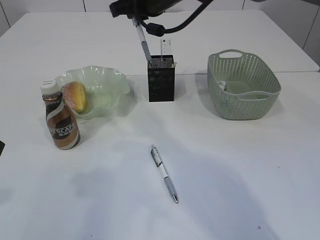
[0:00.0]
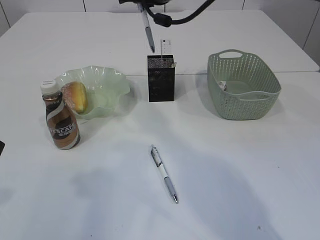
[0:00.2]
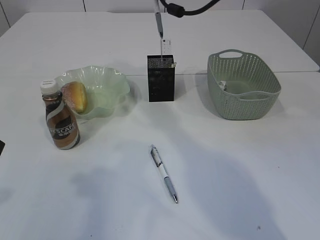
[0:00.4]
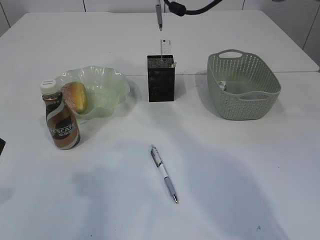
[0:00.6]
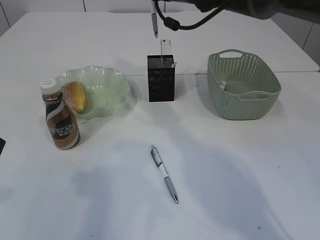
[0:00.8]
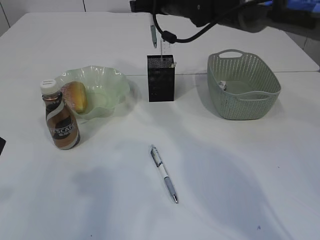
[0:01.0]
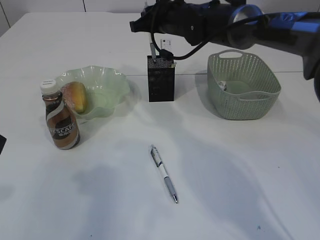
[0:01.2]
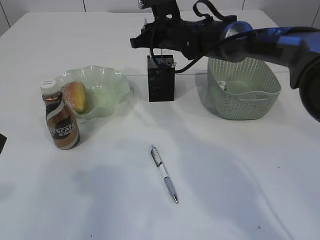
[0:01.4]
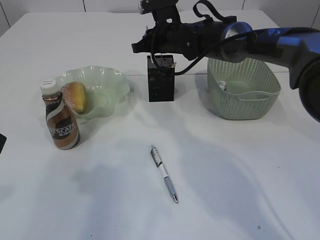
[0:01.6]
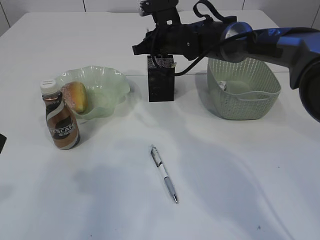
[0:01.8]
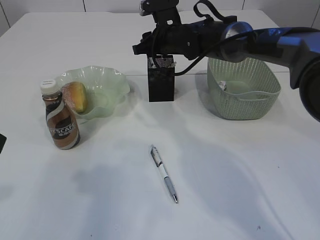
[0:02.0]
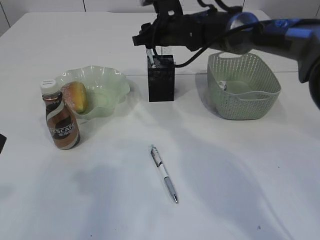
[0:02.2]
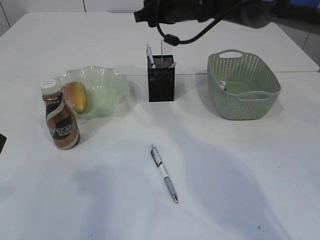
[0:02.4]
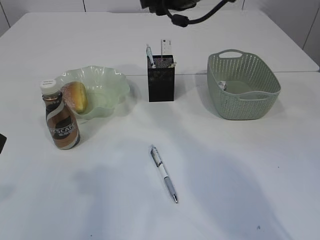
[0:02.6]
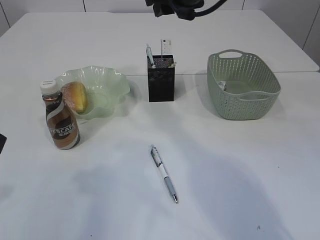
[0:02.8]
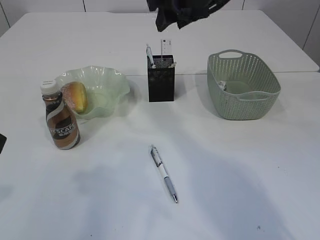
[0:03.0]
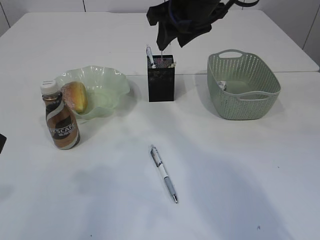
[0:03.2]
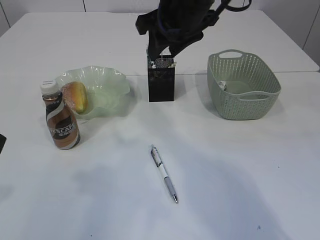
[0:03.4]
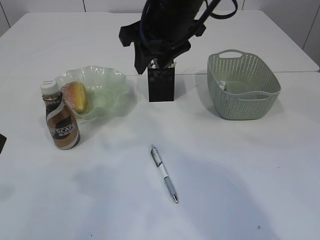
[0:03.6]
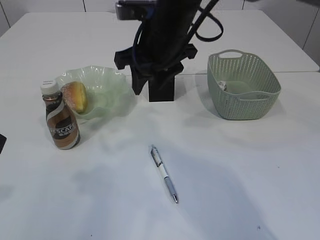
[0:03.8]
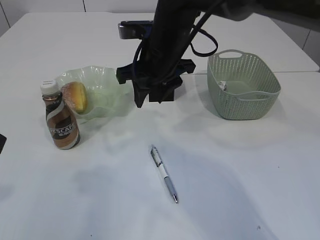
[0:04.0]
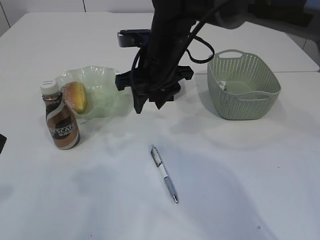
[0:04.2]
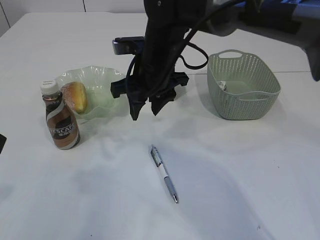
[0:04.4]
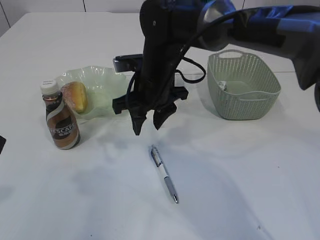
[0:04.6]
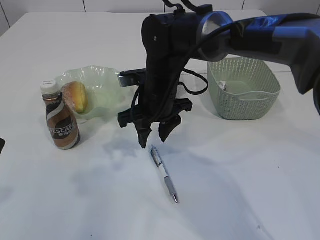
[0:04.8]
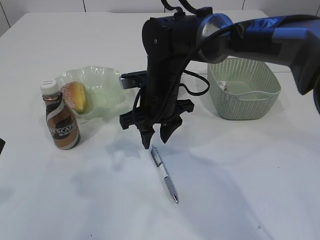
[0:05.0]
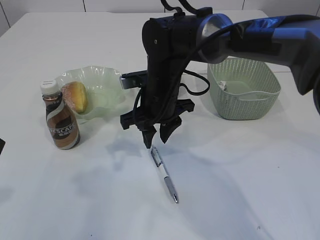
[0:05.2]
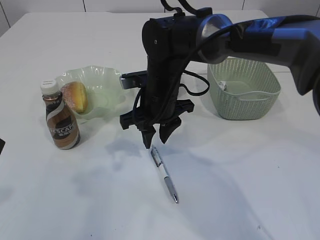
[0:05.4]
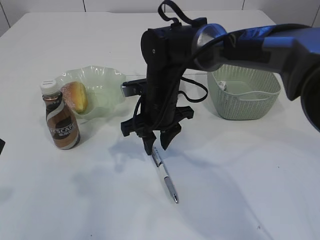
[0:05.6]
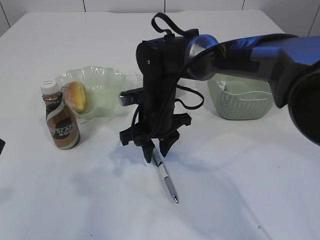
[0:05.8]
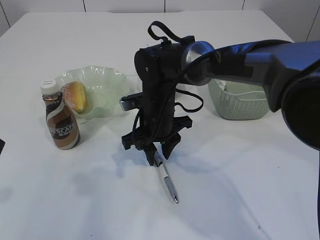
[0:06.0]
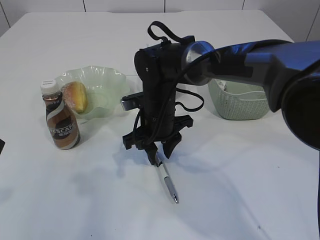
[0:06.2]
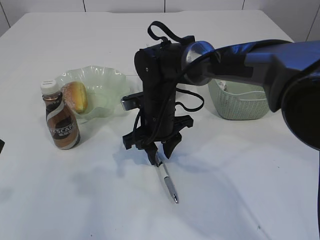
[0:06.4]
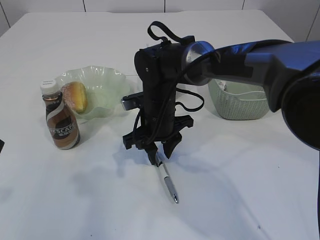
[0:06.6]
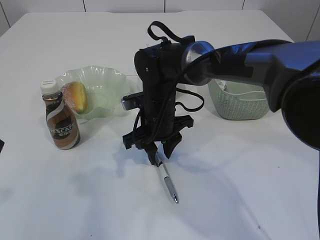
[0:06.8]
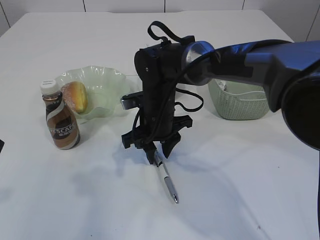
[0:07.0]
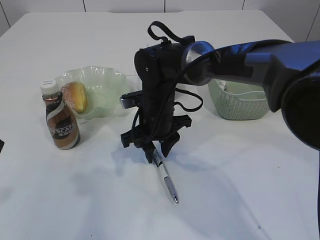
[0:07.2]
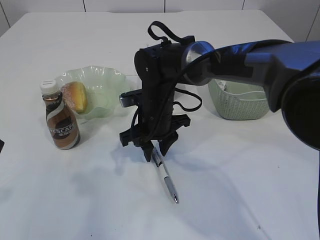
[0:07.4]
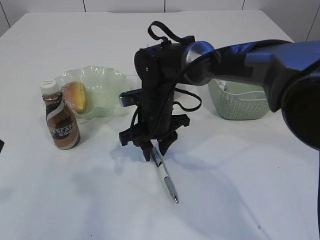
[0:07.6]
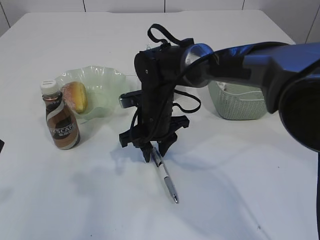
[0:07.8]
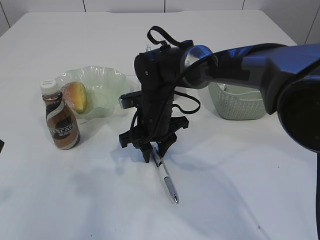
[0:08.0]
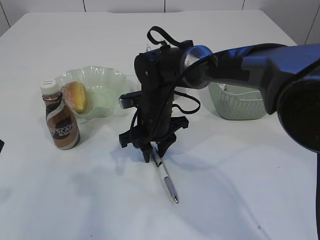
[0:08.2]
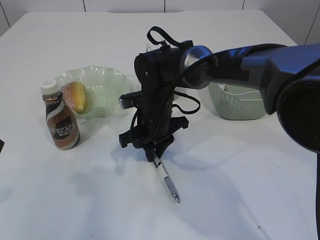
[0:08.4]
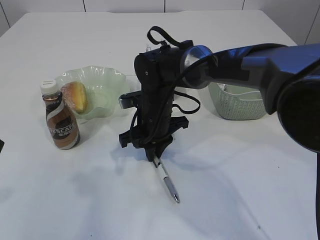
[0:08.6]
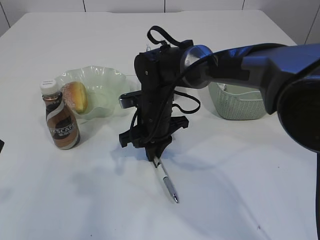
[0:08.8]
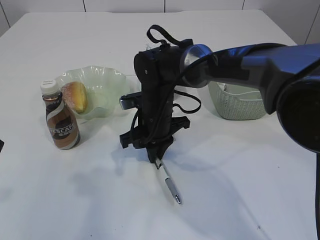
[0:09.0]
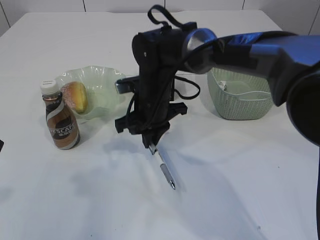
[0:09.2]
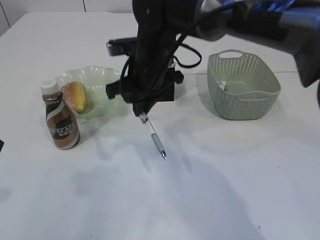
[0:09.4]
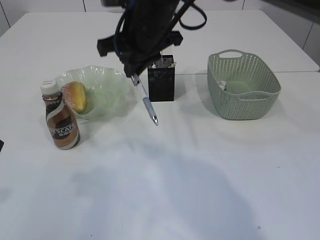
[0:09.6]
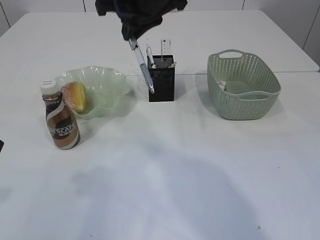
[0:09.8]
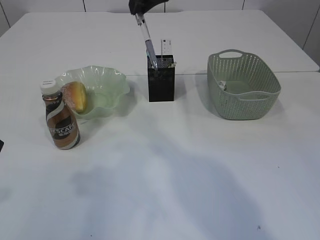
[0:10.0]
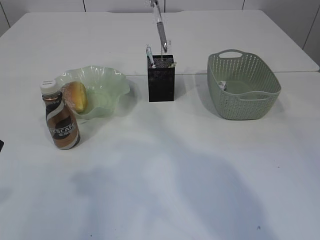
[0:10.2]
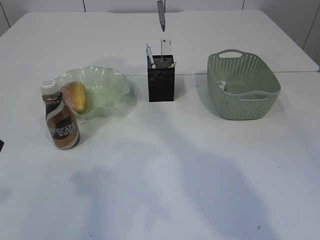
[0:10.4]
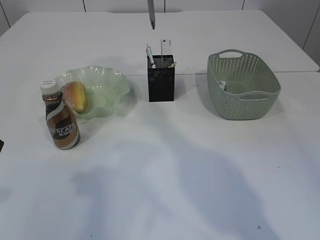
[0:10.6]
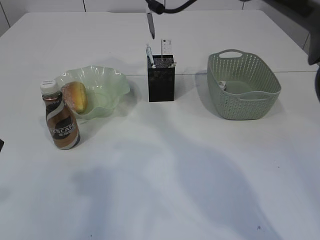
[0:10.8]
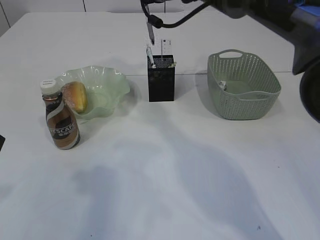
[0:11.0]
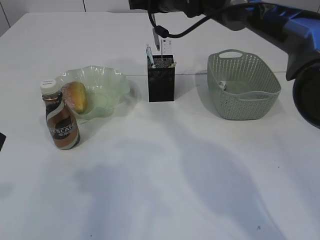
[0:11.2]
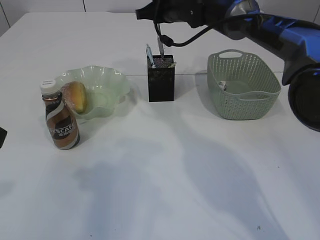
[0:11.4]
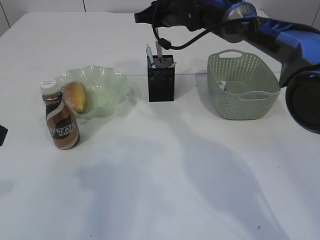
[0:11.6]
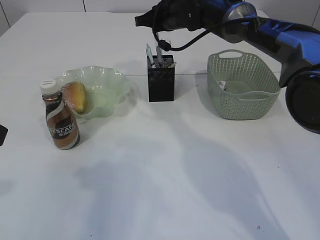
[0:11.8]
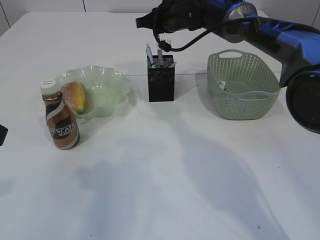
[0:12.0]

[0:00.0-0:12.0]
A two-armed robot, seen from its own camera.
Step, 0.0 to 3.0 s: Place the pen into the pen holder.
Step, 3.2 to 9.2 s: Pick up the pen with right arm.
0.0 to 1.6 s: The right gripper shifts approximately 15 cm downward and forward.
1.6 to 3.0 s: The right gripper heads upward and backward, covering some 15 cm, and opens up.
3.0 to 4.4 s: The right gripper shifts approximately 15 cm downward and to the left.
4.4 to 6.0 s: The right gripper is displaced downward by roughly 10 cm.
6.0 to 7.6 s: The two grippers keep their place.
7.6 to 9.0 s: The right gripper closes up.
9.0 to 10.4 s: The right gripper travels upward by approximately 25 cm.
10.4 to 12.0 s: The right gripper shifts roughly 15 cm downward and forward.

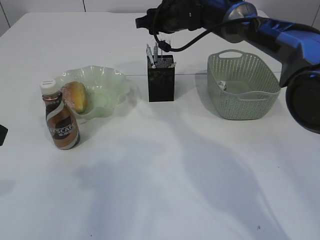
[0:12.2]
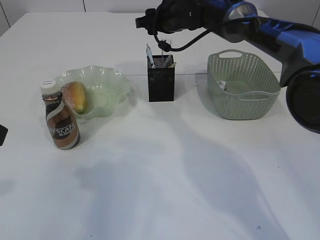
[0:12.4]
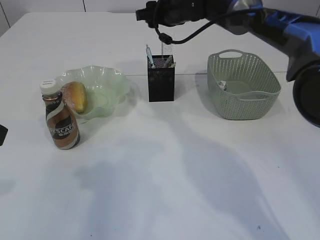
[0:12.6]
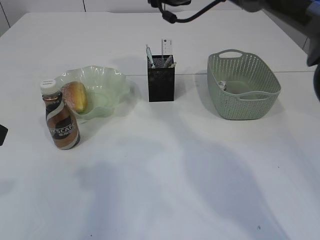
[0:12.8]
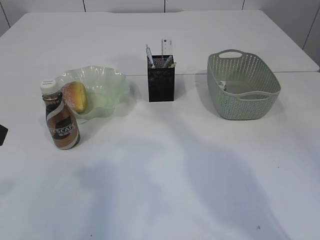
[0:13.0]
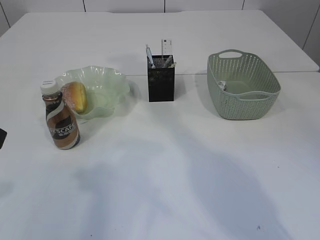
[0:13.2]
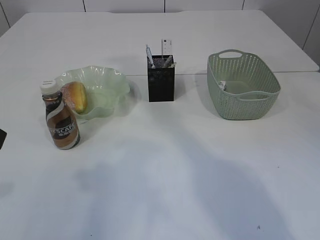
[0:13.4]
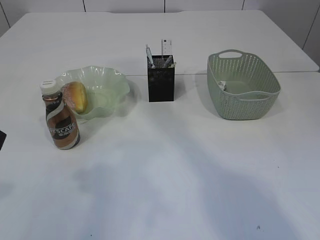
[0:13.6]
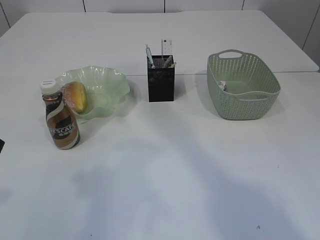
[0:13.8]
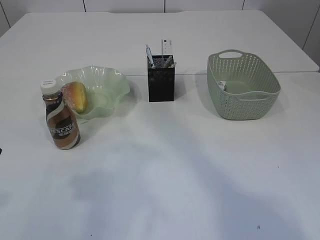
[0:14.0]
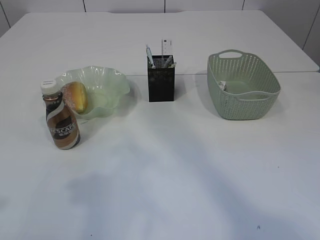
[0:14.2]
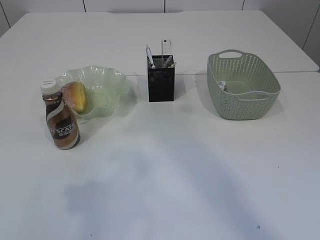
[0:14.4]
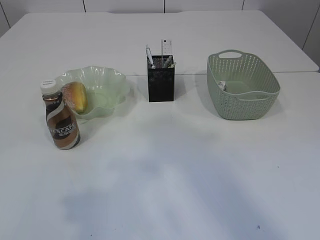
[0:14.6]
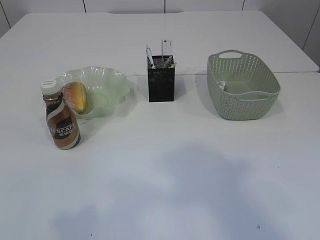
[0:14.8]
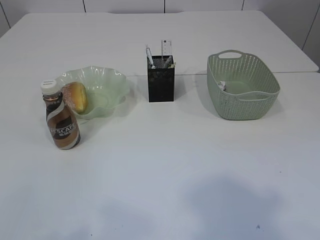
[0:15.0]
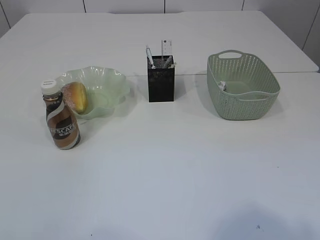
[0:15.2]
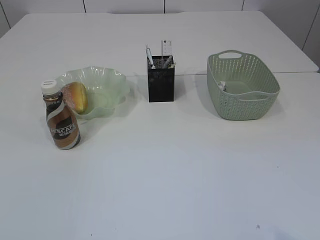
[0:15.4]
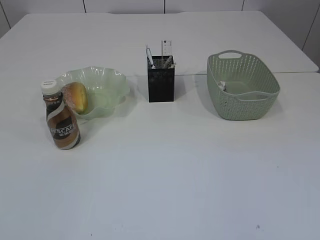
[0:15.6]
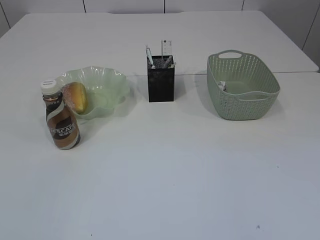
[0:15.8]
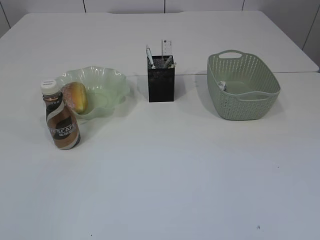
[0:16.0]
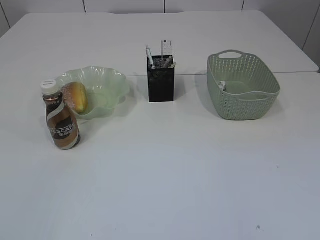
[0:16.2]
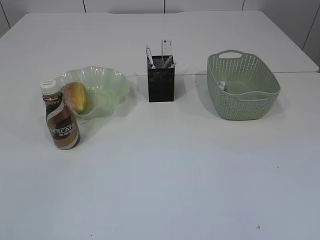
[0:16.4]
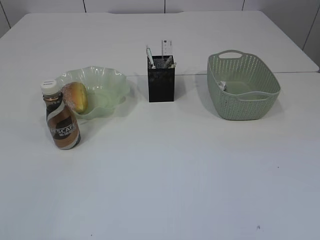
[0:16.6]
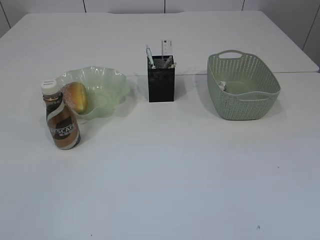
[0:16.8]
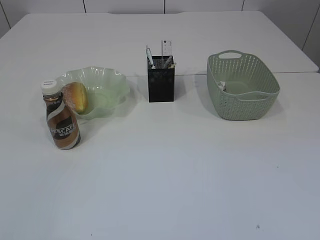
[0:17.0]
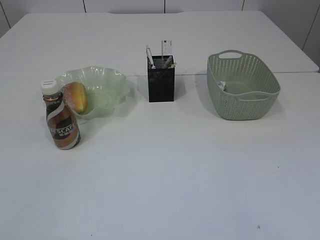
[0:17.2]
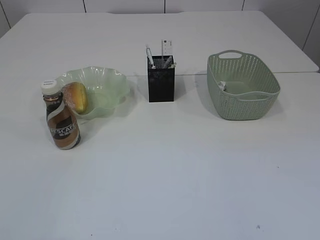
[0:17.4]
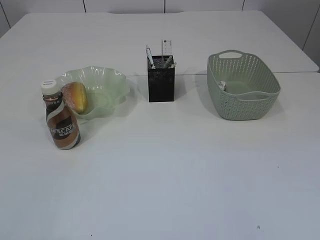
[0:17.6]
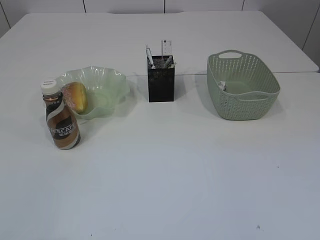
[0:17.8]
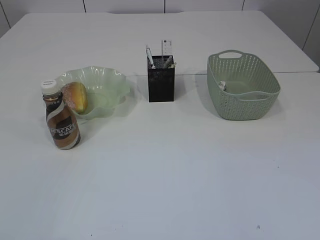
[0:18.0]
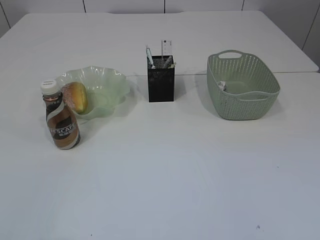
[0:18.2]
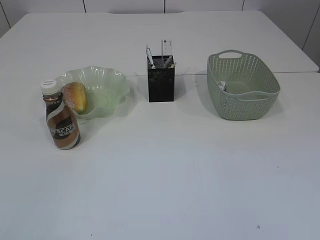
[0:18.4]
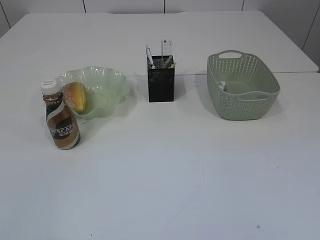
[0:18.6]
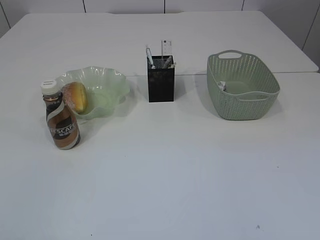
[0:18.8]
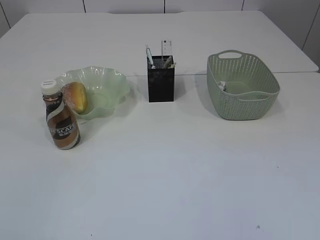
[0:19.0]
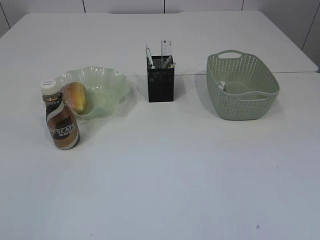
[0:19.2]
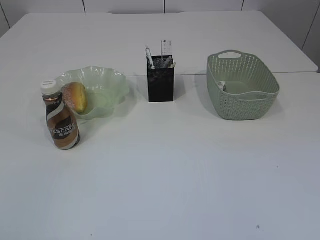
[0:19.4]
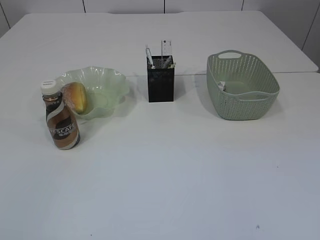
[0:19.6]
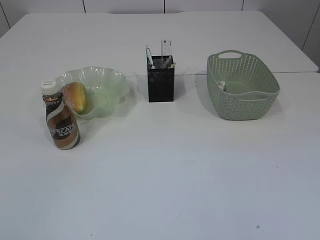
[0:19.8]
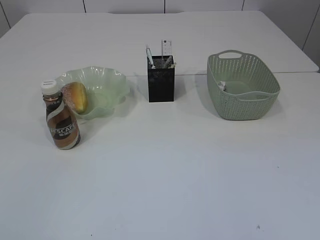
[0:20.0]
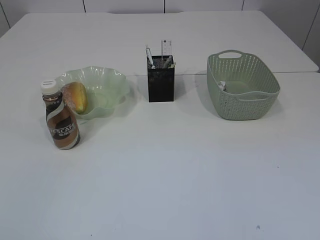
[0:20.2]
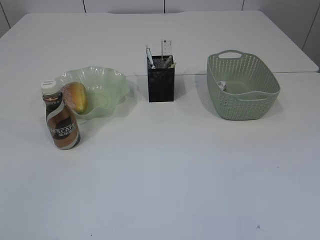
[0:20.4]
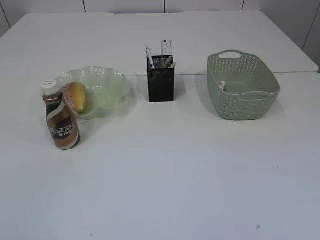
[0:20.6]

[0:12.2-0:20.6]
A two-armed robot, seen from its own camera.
12.2 to 13.6 s: The right gripper shifts some 30 cm upward and backward, and closes its fingers.
13.6 to 15.0 s: The left gripper travels backward by approximately 15 cm.
16.4 to 17.8 s: Neither gripper changes place.
19.2 to 20.6 s: Both grippers stay about where they are.

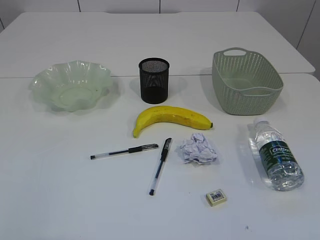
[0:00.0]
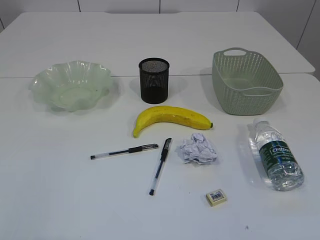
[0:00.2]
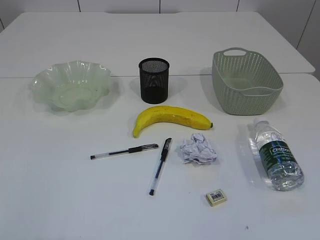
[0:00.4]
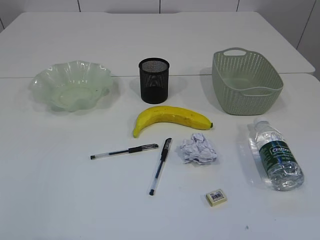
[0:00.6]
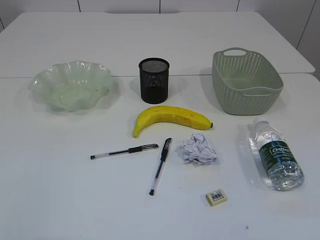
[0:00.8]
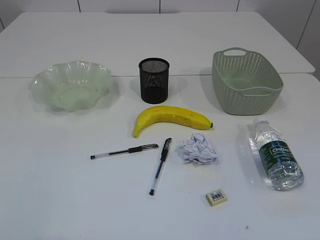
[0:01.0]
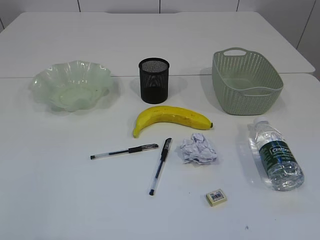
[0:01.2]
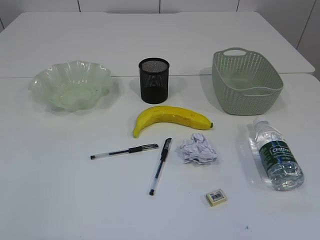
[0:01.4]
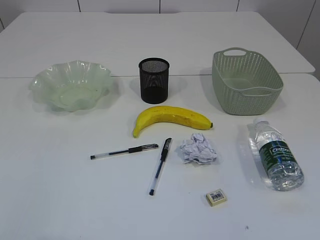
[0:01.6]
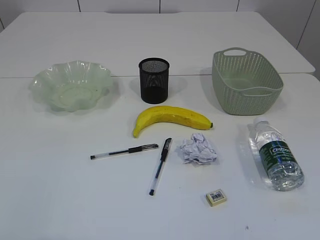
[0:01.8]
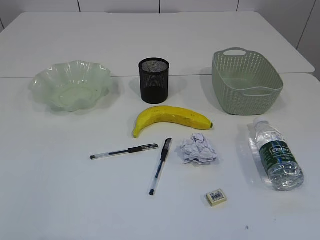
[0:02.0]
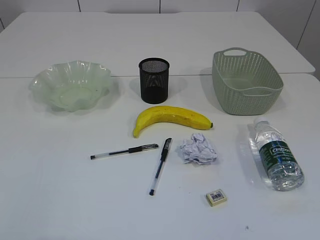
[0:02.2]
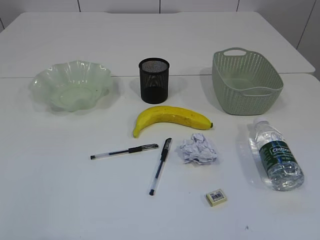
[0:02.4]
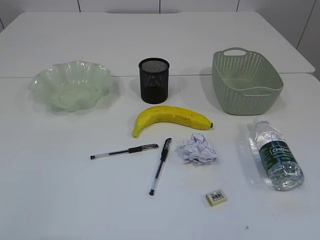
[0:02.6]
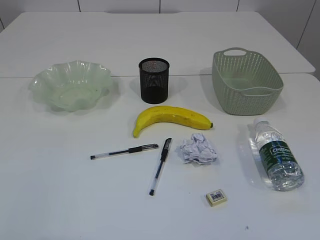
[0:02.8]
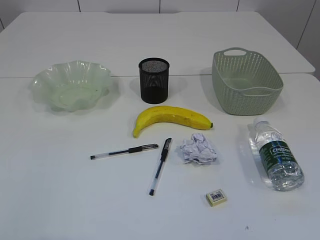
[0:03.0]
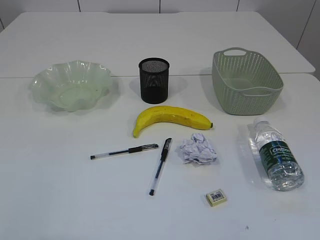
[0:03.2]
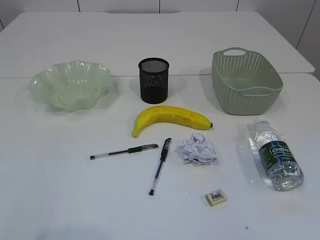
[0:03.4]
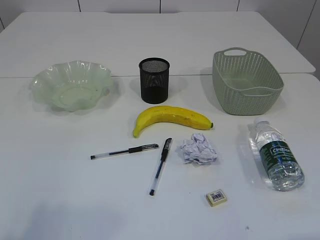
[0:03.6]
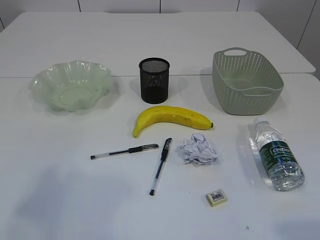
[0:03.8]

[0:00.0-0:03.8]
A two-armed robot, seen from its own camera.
1.2 to 2.6 s: The two grippers keep their place.
2.6 to 3.8 s: The left gripper shifts some 10 cm upward and forward, and opens its fingers.
